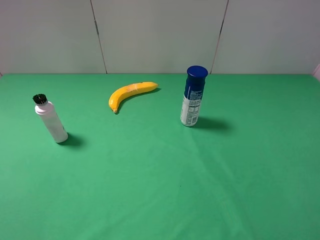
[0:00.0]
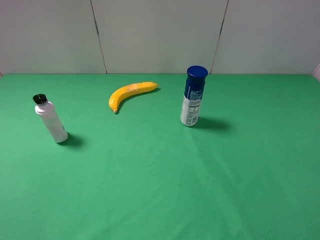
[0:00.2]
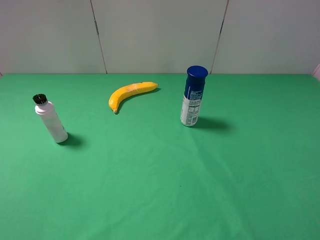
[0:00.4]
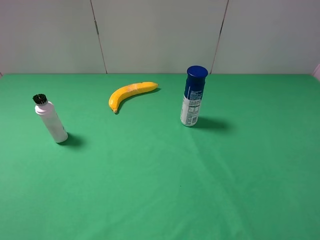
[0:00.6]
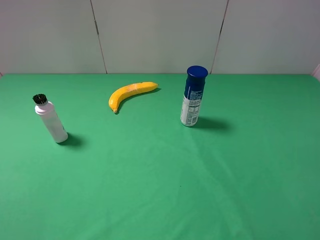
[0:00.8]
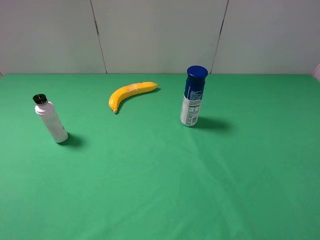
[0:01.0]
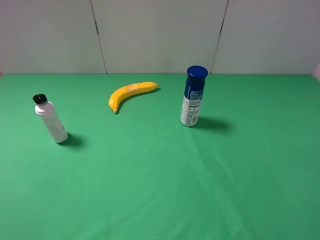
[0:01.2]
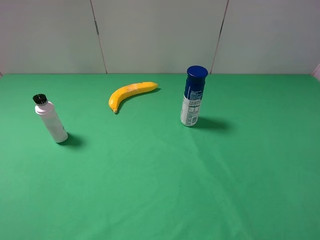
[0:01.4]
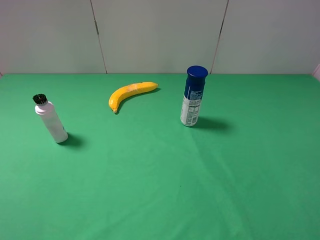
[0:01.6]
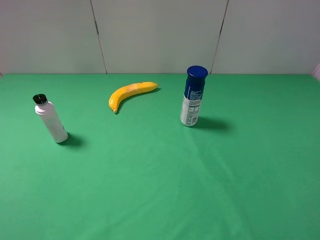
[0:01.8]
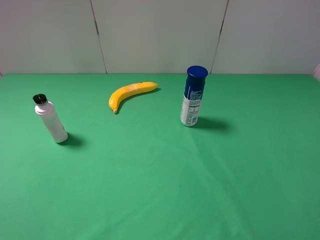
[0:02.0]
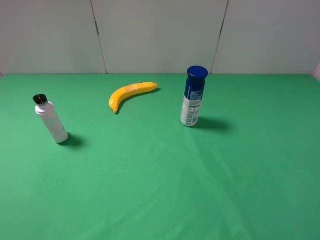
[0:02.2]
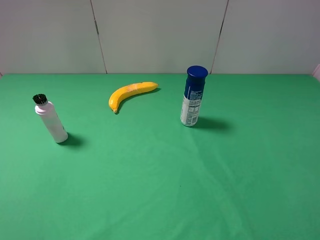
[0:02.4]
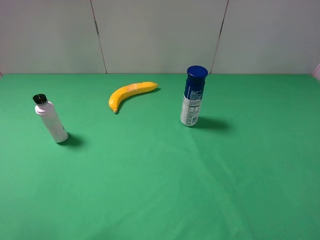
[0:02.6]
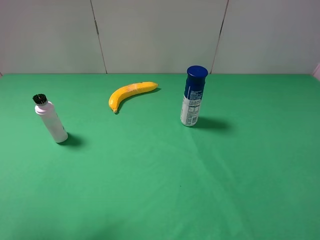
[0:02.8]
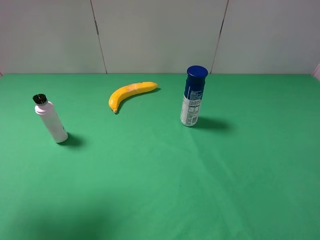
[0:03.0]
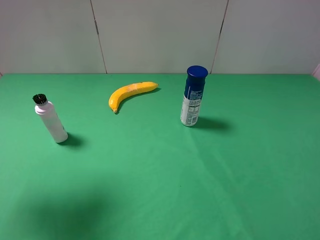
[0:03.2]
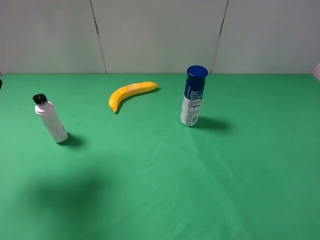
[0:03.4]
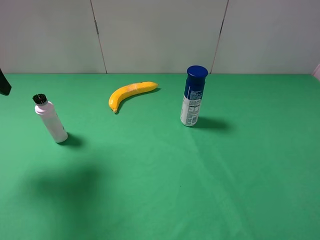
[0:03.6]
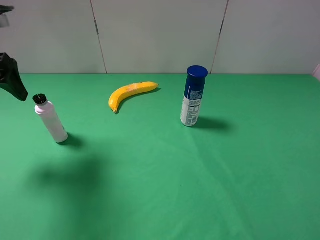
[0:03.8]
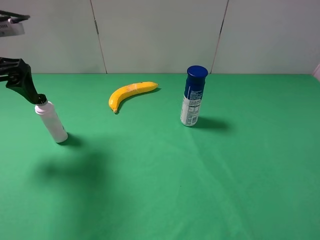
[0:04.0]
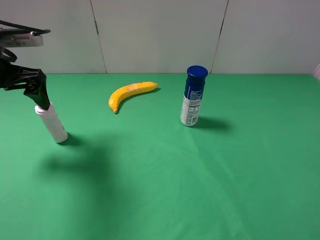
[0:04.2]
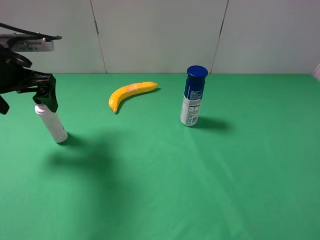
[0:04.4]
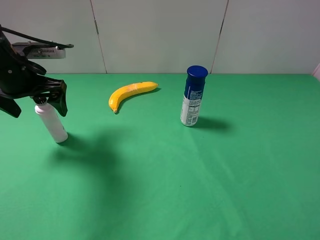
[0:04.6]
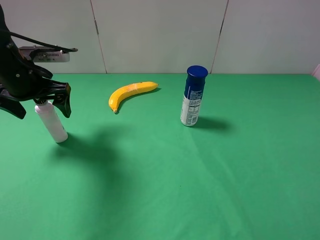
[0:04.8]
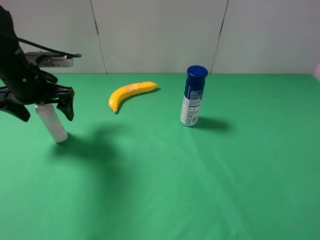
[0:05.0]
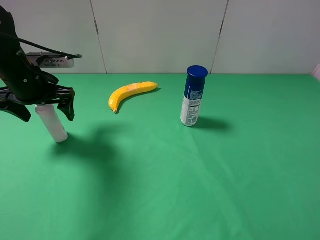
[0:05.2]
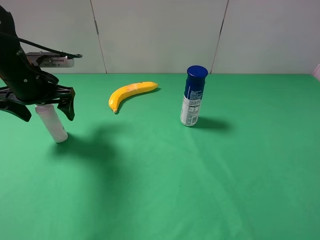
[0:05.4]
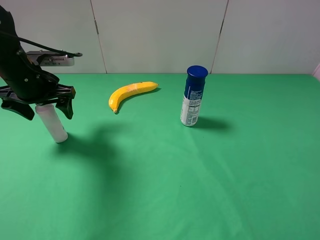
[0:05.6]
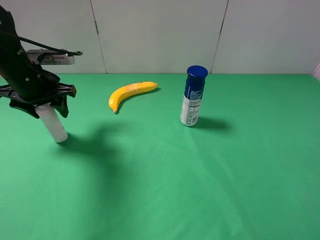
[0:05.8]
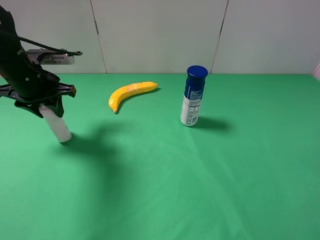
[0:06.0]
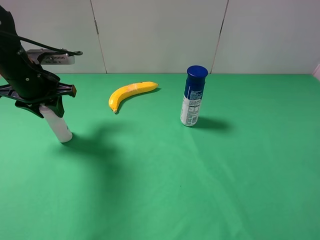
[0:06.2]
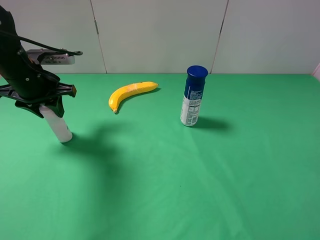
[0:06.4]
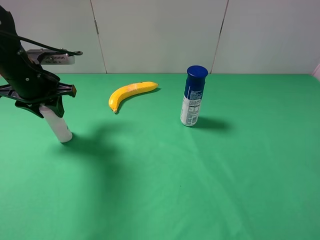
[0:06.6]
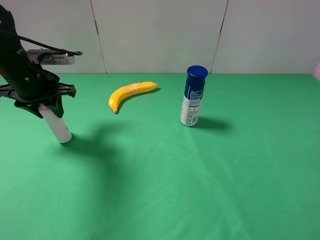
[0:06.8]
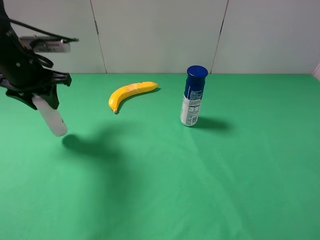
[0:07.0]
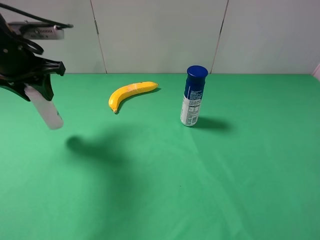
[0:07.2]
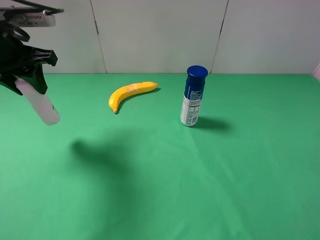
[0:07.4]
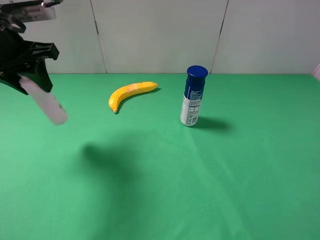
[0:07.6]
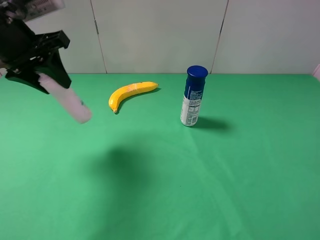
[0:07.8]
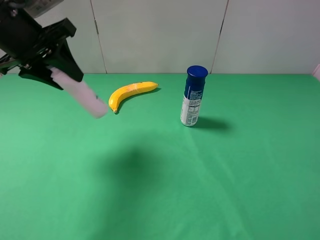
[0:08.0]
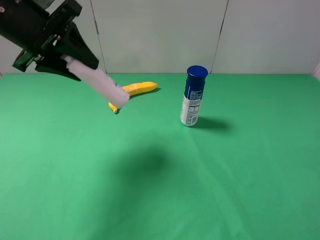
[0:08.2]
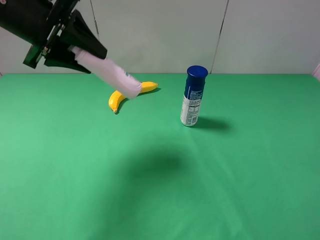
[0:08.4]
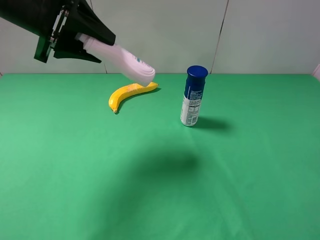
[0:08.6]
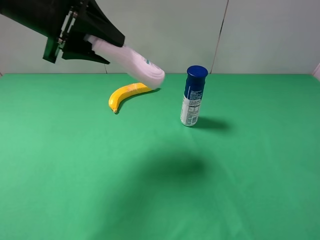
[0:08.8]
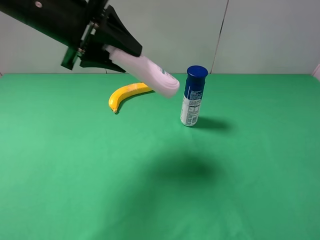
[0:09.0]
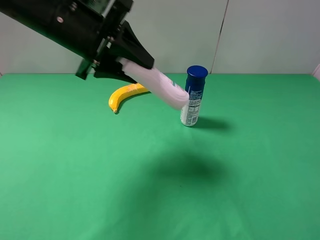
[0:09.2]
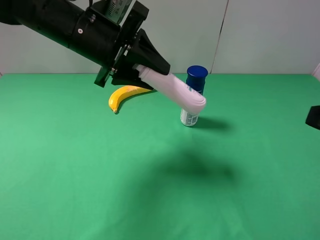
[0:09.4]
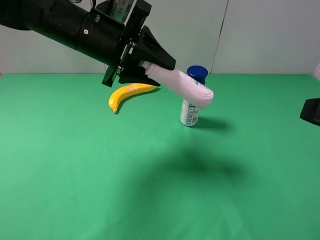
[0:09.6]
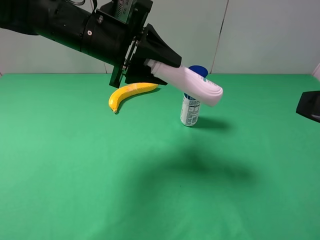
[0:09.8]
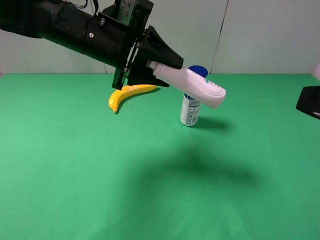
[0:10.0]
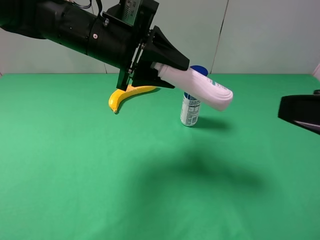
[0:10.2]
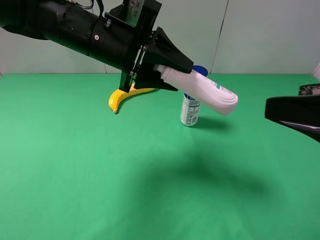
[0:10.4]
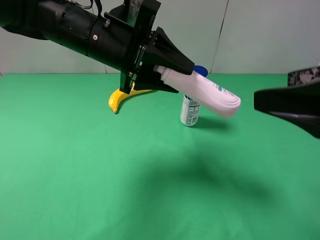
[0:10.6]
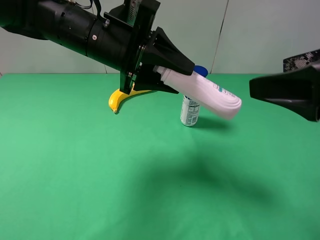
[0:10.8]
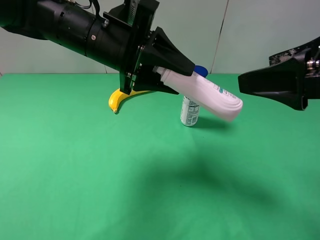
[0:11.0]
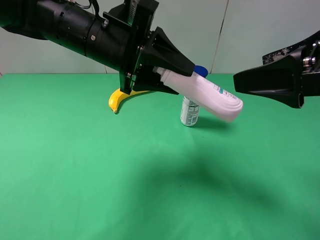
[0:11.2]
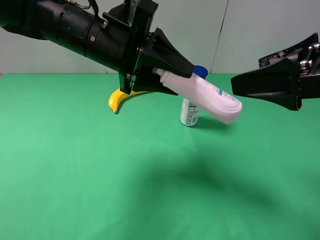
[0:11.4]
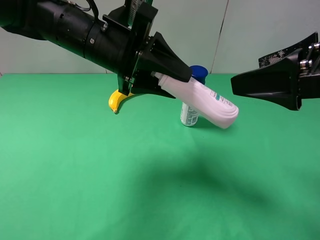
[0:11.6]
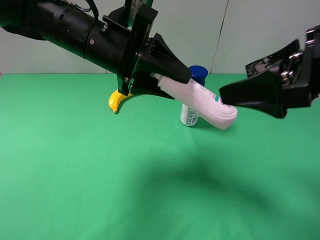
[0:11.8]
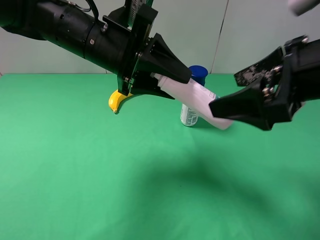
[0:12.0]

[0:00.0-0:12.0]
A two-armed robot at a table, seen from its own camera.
Task of the whole recording: use the left gripper to pick up the item and transfer it from the left gripper to the right gripper.
Step, 0:00.0 to 0:06.0: Use the left gripper to grab the cleaning agent on the left side of the table.
0:00.0 to 0:01.6: Neither gripper changes place.
0:01.6 to 0:03.0: The left gripper heads forward and upward, covering some 15 cm.
0:03.0 to 0:04.4: The left gripper moves forward and downward, about 20 cm.
0:04.4 to 0:06.0: The left gripper ends up some 5 cm from where it was, and closes up.
0:06.0 to 0:07.6: The left gripper is displaced upward by approximately 10 cm.
0:07.6 to 0:09.0: The left gripper goes approximately 10 cm to the right.
0:09.0 to 0:10.4: The left gripper heads to the right, covering approximately 5 cm, while the right gripper goes approximately 5 cm forward.
0:10.4 to 0:12.0: The right gripper heads forward, covering about 5 cm.

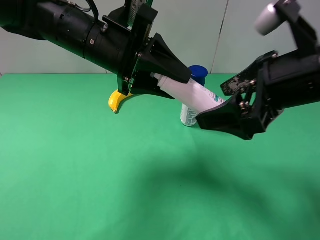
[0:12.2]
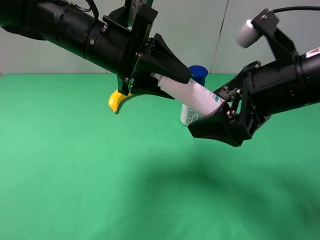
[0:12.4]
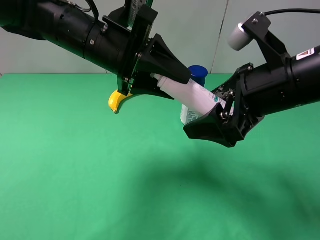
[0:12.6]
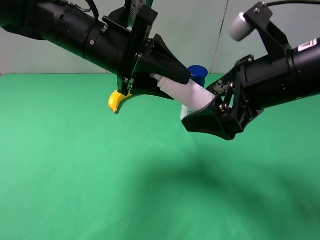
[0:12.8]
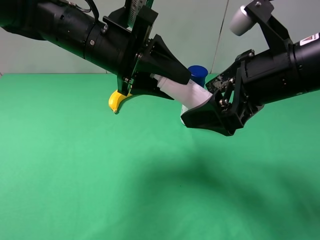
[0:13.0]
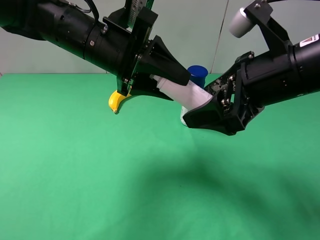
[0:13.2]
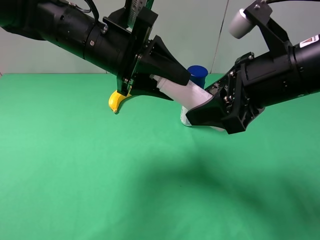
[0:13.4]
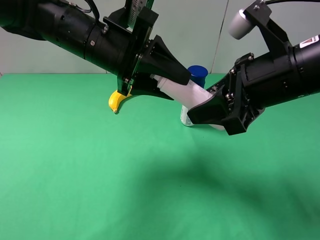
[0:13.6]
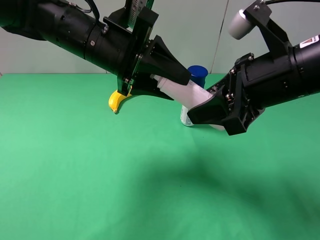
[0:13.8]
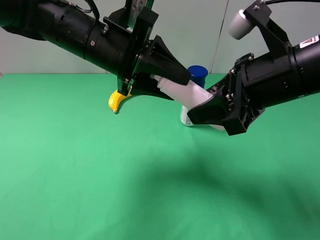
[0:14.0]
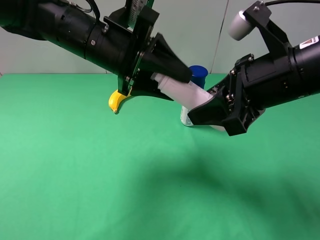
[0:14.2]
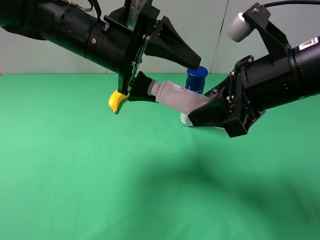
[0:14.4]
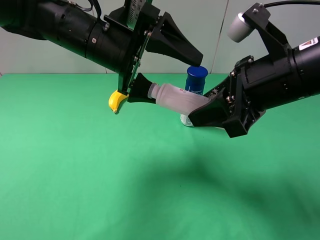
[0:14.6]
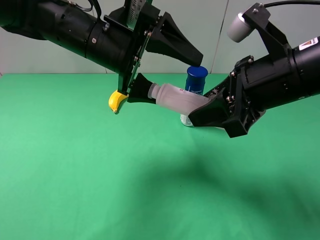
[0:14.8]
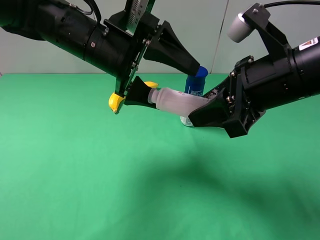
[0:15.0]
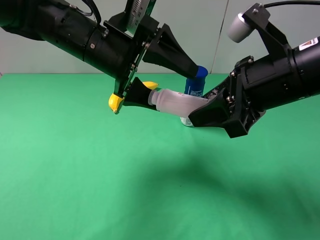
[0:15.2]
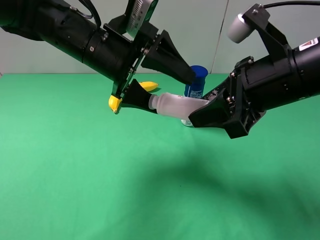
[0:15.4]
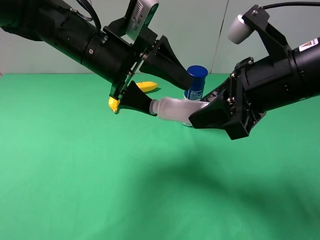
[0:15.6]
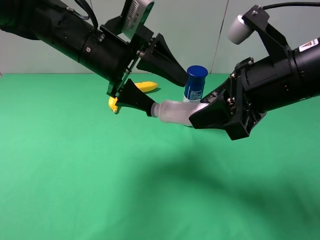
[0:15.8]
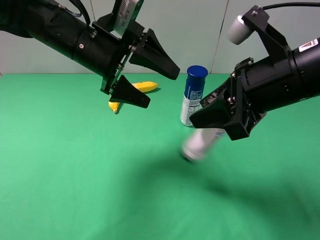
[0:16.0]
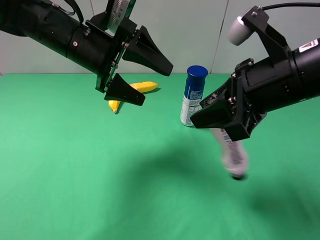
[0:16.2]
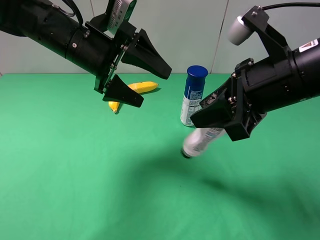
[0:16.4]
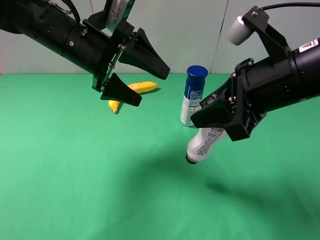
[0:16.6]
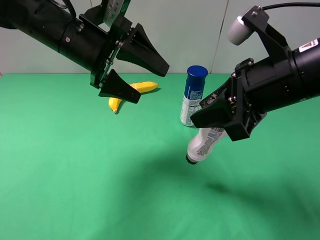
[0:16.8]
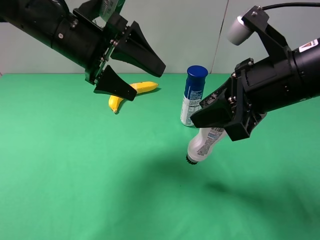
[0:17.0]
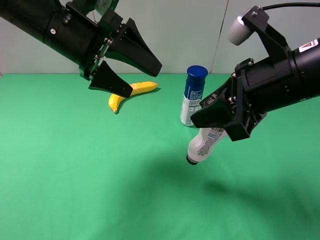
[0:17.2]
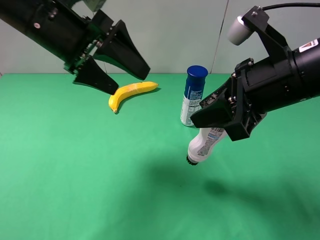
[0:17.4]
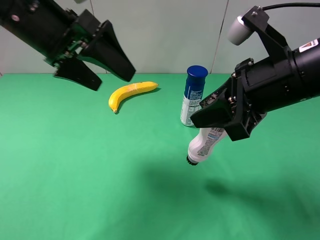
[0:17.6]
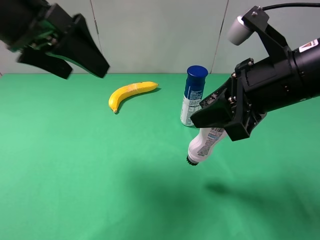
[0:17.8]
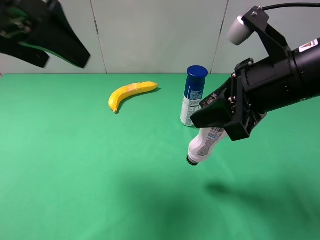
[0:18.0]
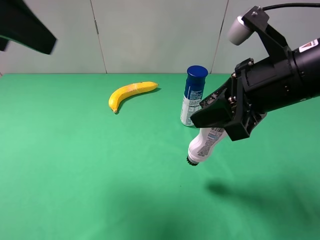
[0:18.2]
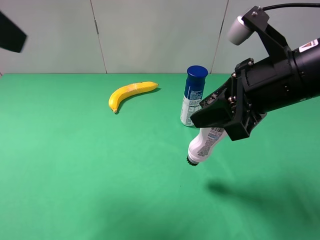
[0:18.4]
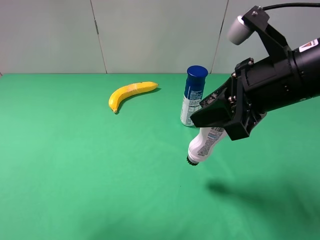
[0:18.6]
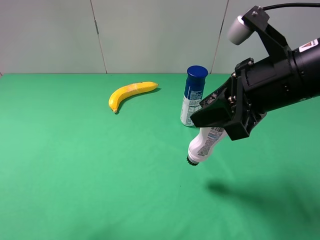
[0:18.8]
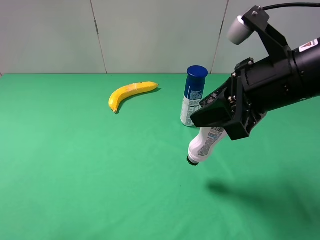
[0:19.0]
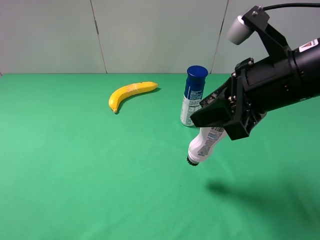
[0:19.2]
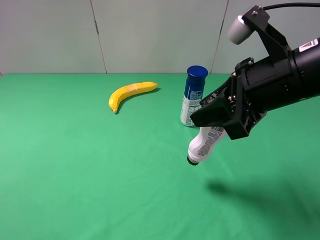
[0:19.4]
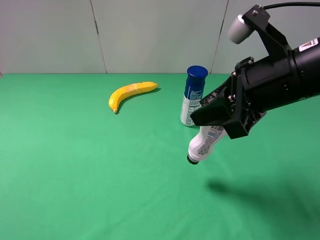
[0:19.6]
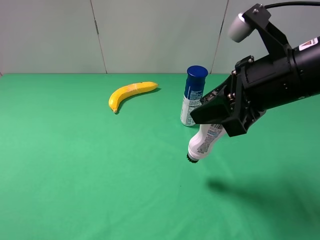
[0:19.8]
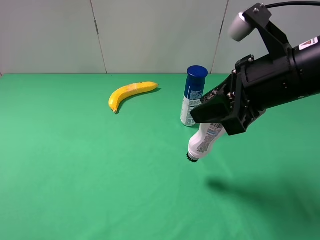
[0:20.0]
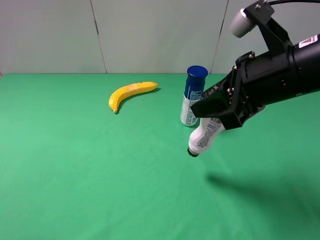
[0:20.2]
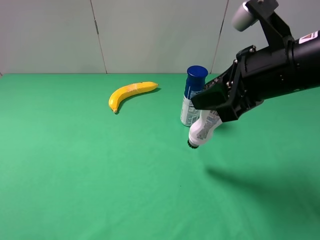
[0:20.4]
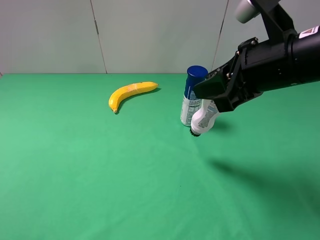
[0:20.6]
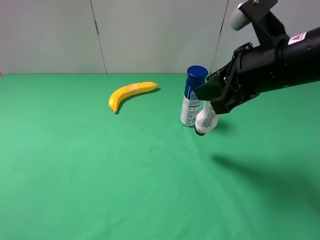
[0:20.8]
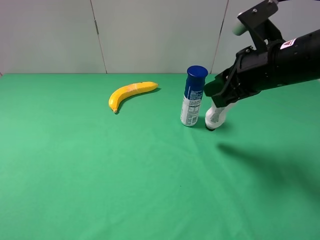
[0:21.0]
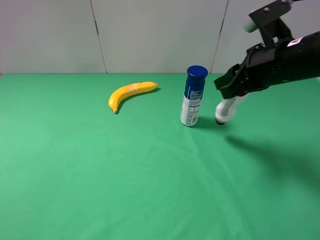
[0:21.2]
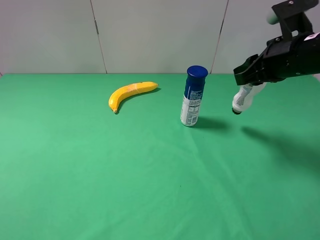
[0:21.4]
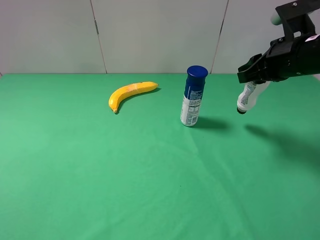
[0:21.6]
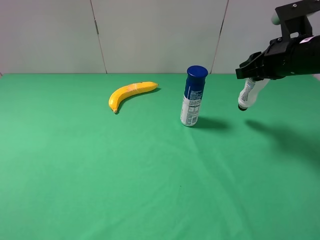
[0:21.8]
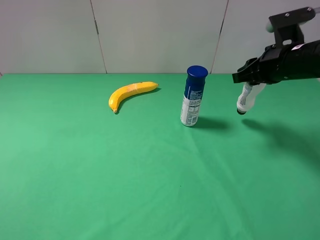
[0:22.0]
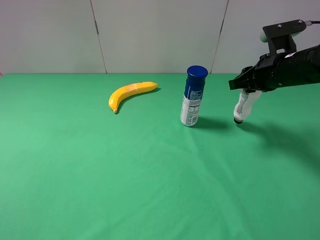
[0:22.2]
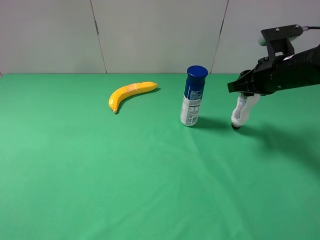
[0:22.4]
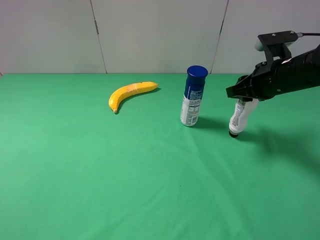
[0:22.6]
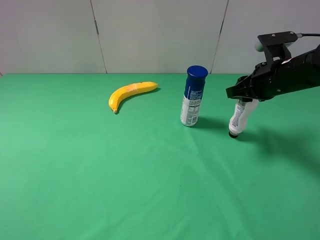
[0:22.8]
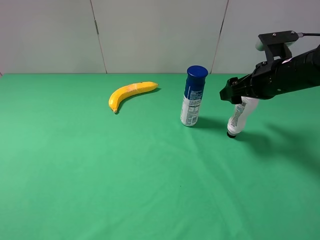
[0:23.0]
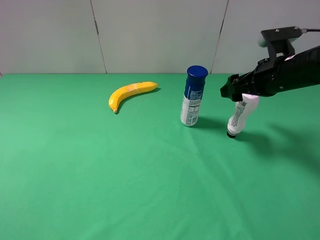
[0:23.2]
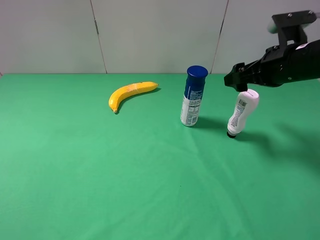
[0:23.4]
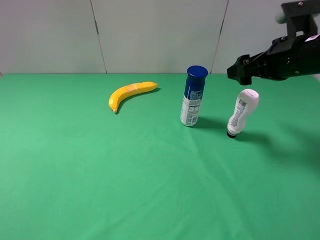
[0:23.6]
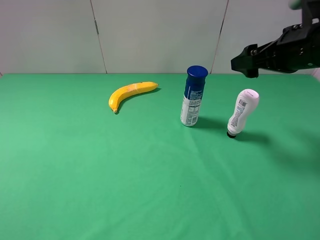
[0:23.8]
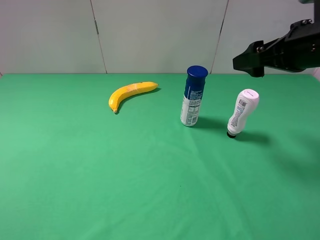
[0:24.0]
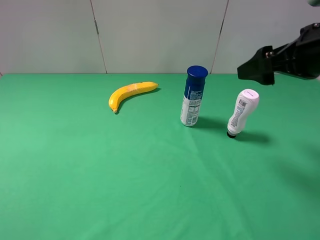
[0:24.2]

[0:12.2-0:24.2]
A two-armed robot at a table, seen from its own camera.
Task of the whole recording: use the left gripper to pick up the item and transfer it from the left gripper to the right gripper.
Step, 0:12.2 to 0:14.4: Pass the cleaning agent to the right gripper.
Step, 0:14.6 to 0:23.0: The right gripper places cleaning agent on the right side of the table.
0:12.2 to 0:13.8: The right gripper closes its fingers.
0:13.8 to 0:15.2: The left gripper opens.
0:15.2 to 0:16.6: There are only small adjustments of the grippers.
0:16.6 to 0:18.2: The left gripper heads upward, backward and to the left, covering about 20 cm.
0:18.2 to 0:19.8: The left gripper is displaced backward, downward and to the left by roughly 20 cm.
0:19.8 to 0:21.2: The right gripper is displaced forward by some 5 cm.
0:21.2 to 0:22.6: The right gripper shifts about 5 cm downward.
0:22.6 to 0:24.2: The right gripper goes about 10 cm upward and backward, and opens its fingers.
